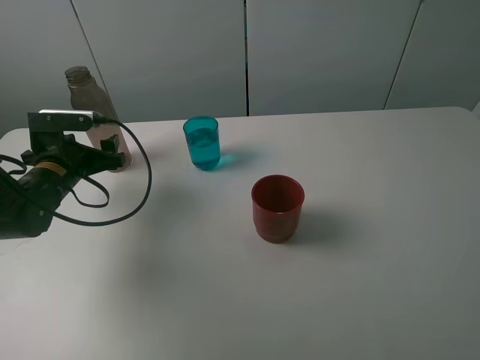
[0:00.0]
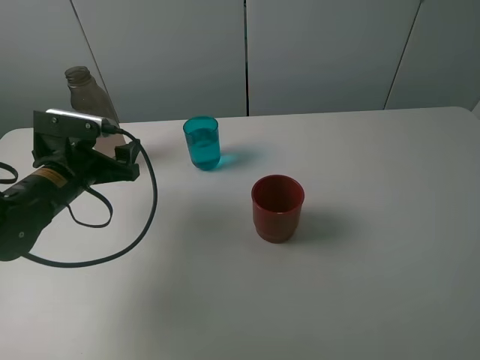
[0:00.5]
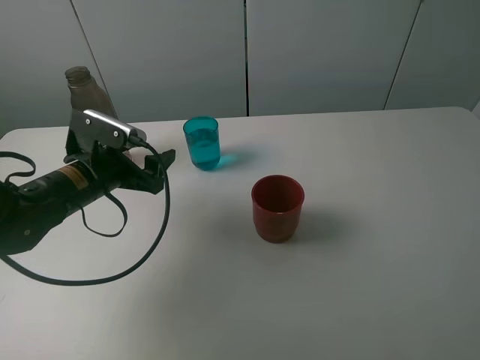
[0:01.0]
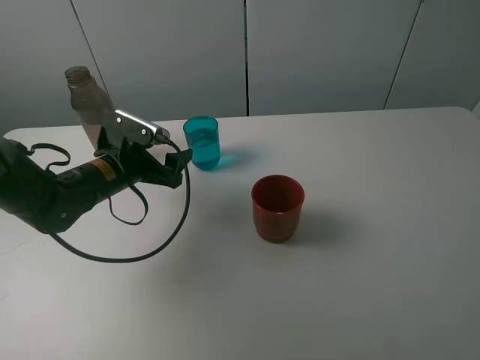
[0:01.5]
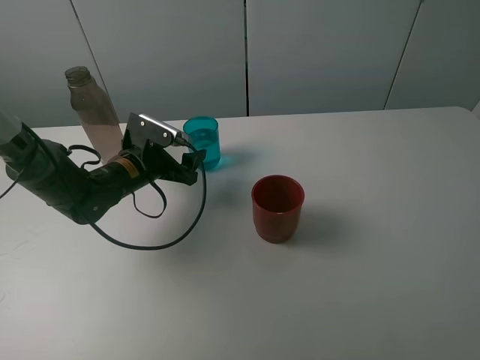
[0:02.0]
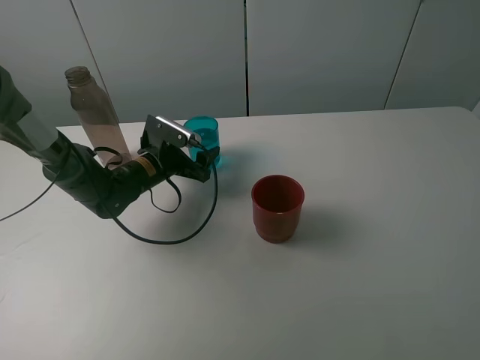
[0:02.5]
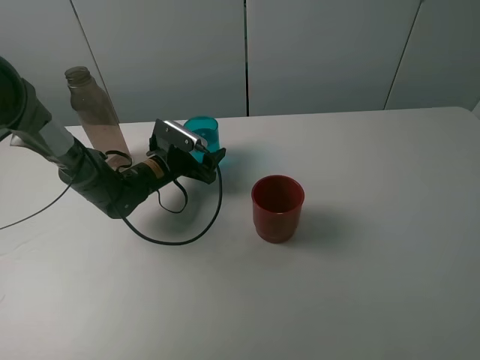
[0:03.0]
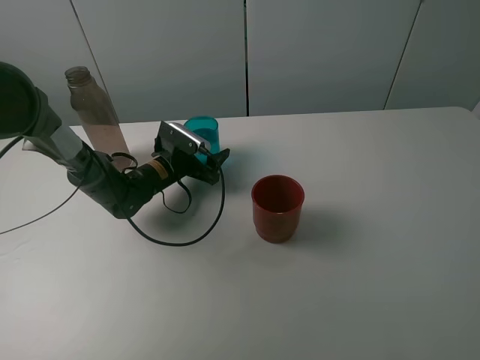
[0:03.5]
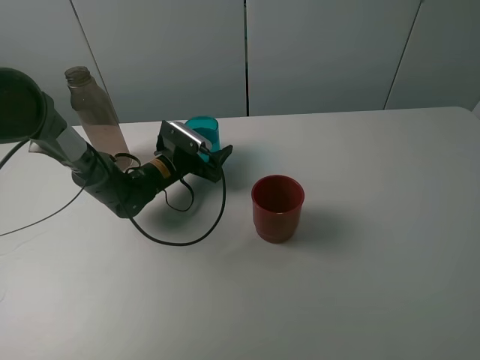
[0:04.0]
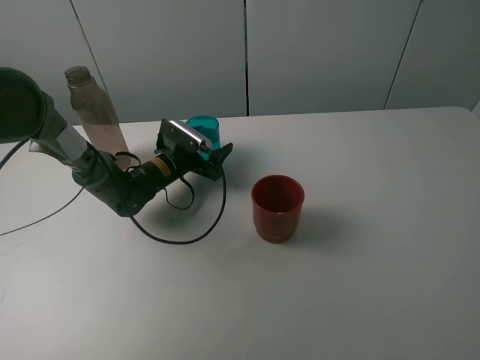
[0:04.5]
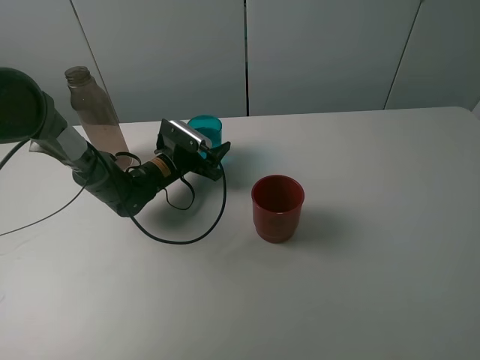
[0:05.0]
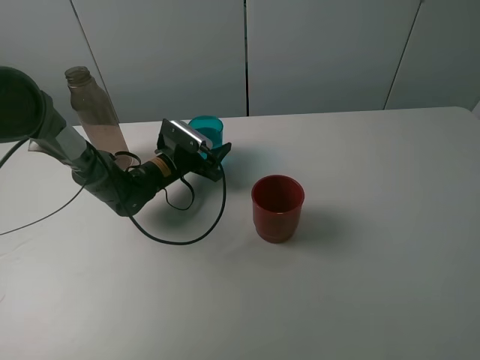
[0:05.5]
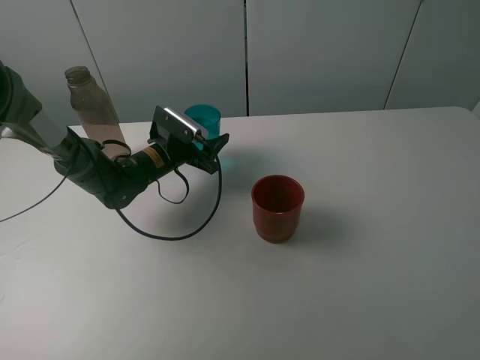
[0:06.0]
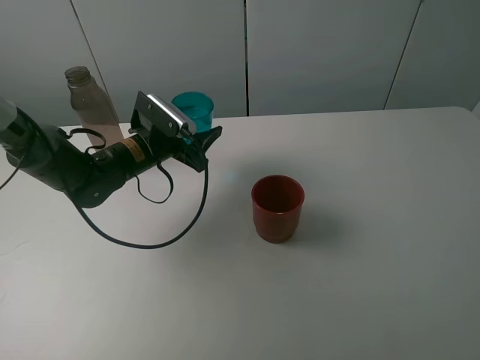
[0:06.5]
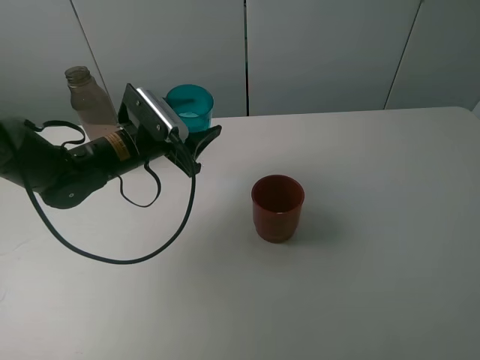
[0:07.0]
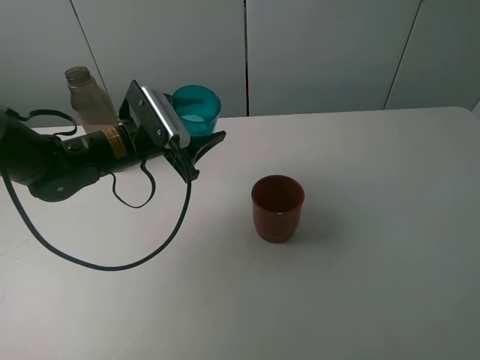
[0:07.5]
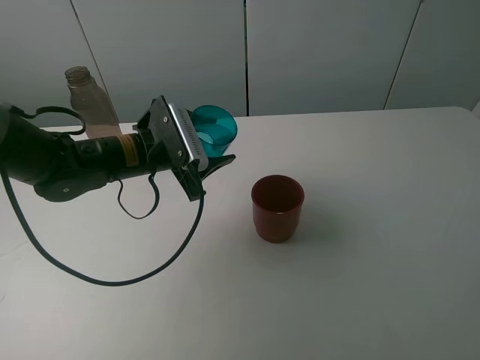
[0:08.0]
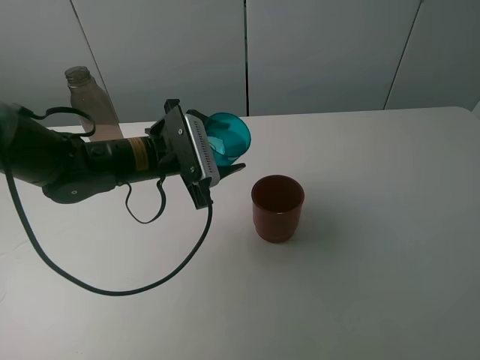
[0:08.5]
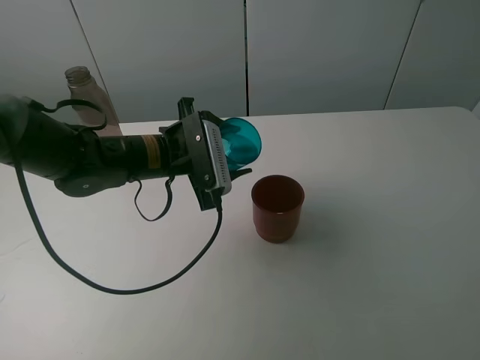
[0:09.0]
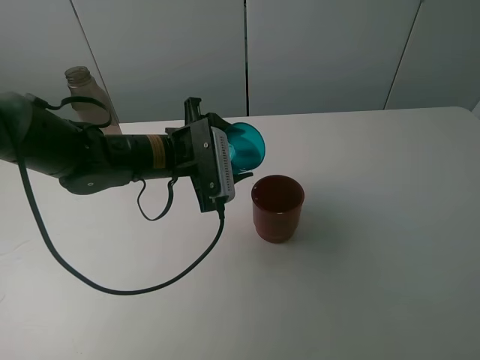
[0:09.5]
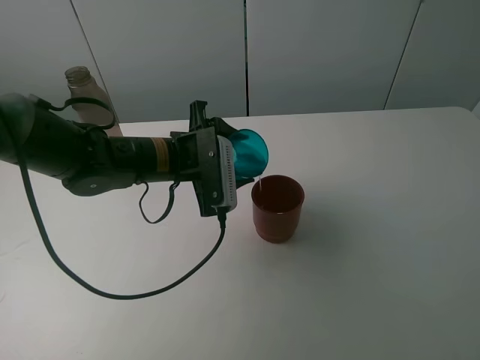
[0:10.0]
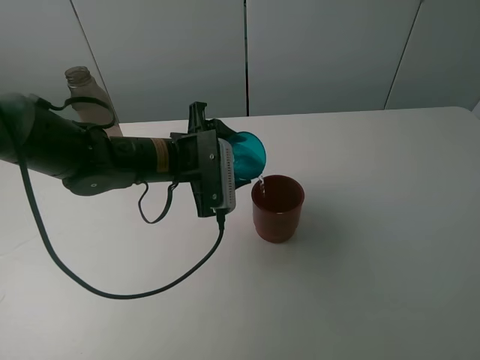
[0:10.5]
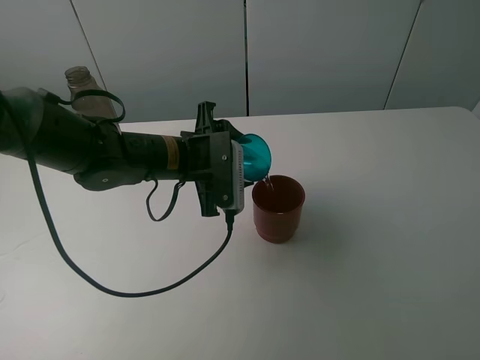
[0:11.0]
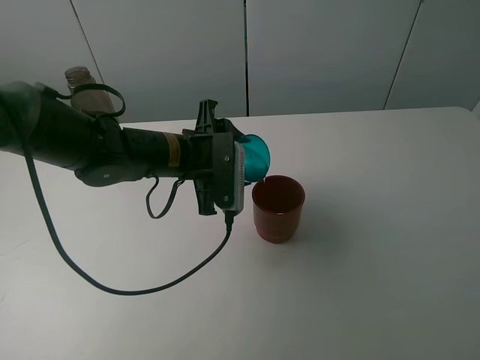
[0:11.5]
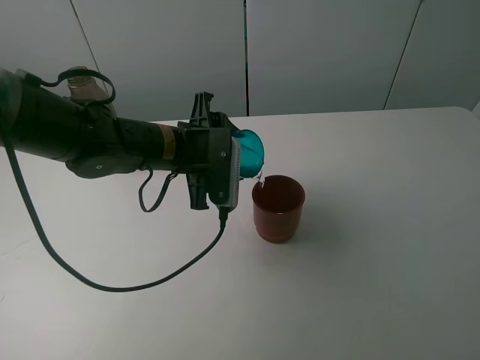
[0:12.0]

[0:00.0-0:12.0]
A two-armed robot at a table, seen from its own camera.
Task of the whole recording: pick up the bottle and pour water into the cup, then pick up the cup containing water and pour it into another cup.
Step, 0:00.0 to 0:05.0: Grasp the blue cup with the left gripper.
0:00.0 to 0:02.0: The left gripper goes roughly 10 cm to the right.
0:02.0 to 0:04.0: The left gripper heads forward, covering approximately 5 cm.
0:04.0 to 0:06.0: The left gripper closes its fingers.
0:06.0 to 0:08.0: The left gripper heads backward and upward, covering approximately 10 cm.
0:10.0 to 0:12.0: The grippers stay close to where they were, moving slightly.

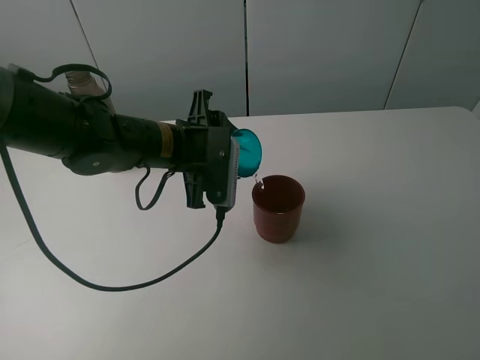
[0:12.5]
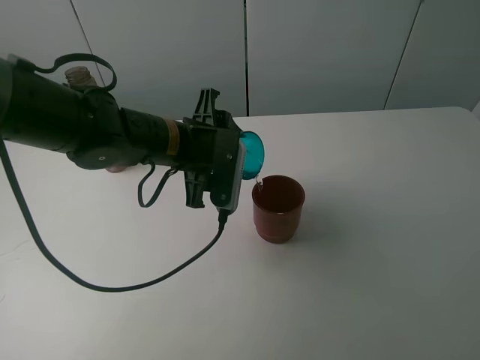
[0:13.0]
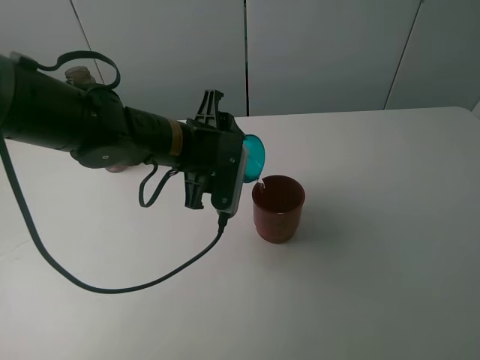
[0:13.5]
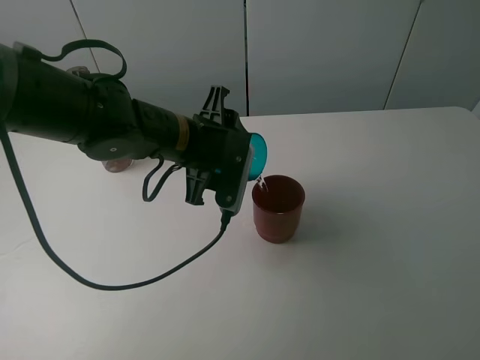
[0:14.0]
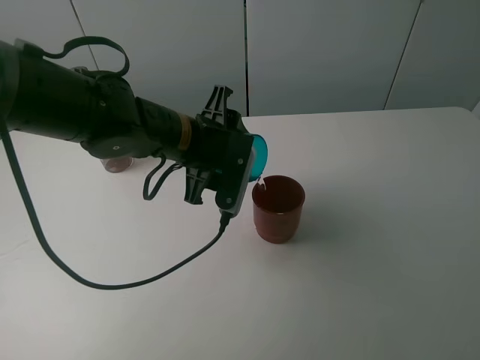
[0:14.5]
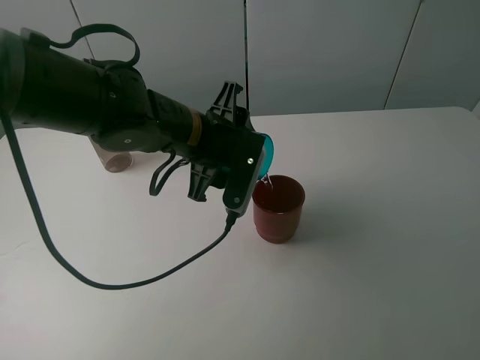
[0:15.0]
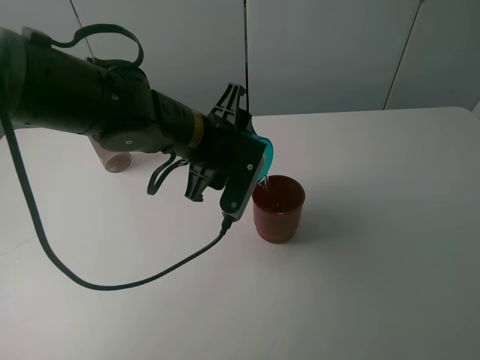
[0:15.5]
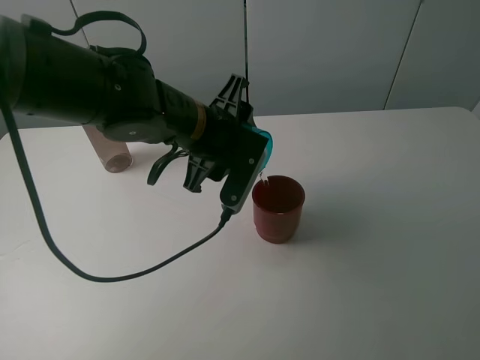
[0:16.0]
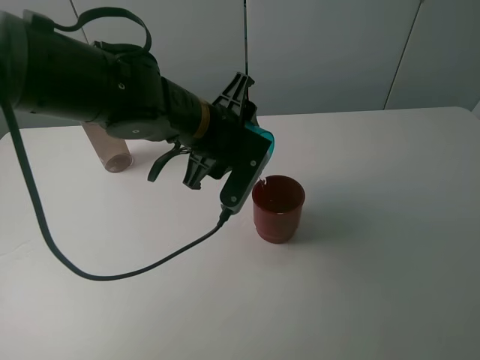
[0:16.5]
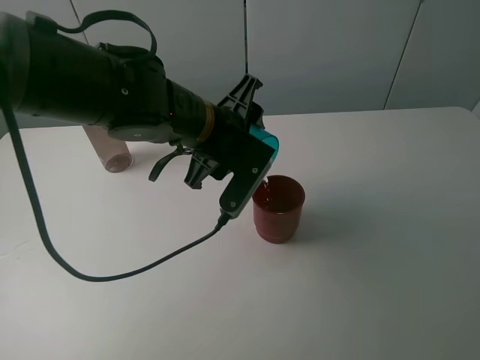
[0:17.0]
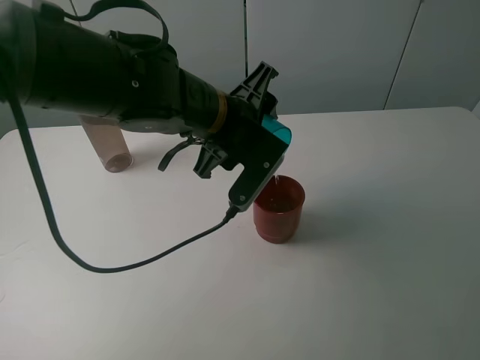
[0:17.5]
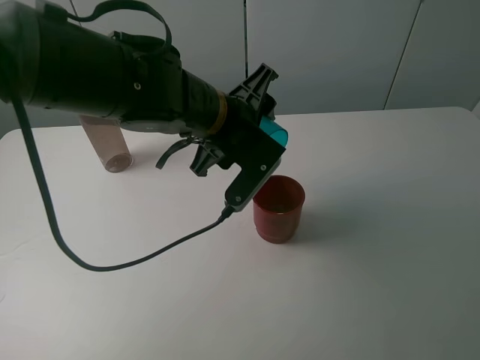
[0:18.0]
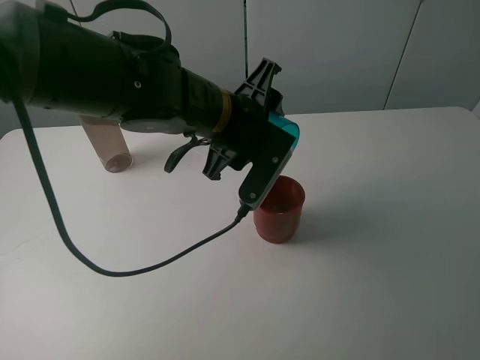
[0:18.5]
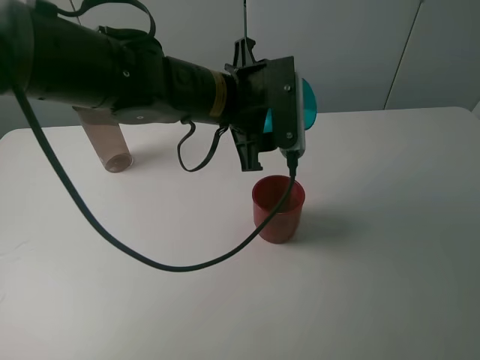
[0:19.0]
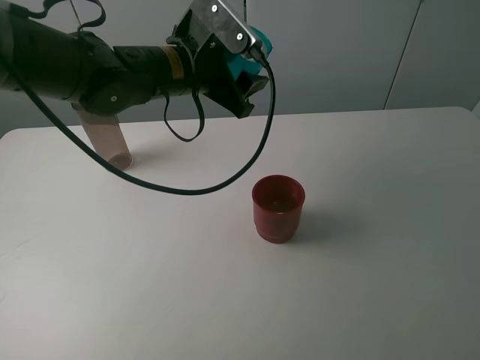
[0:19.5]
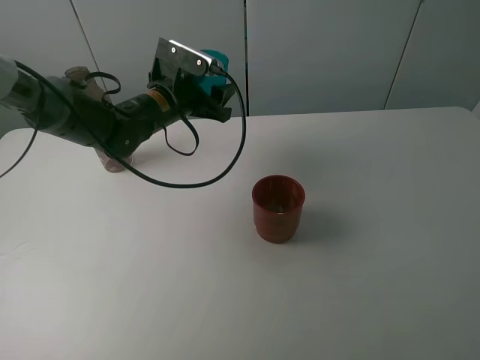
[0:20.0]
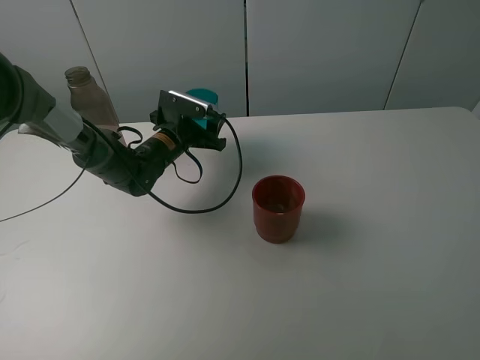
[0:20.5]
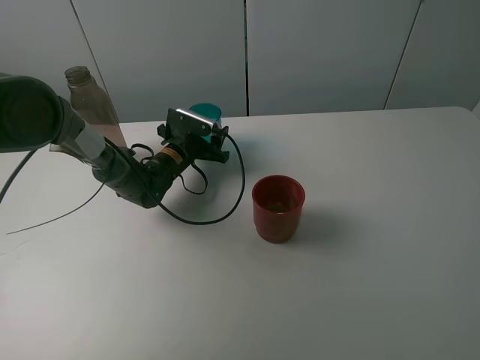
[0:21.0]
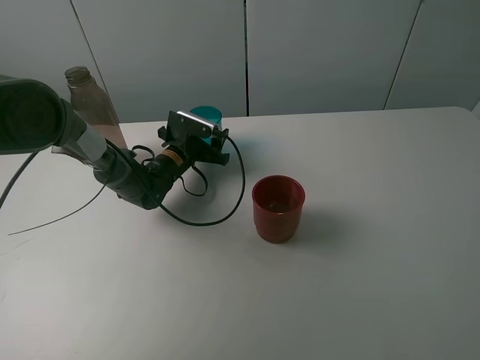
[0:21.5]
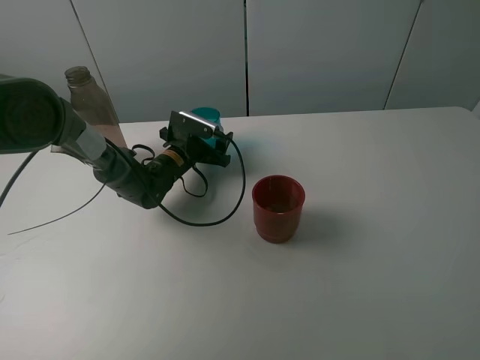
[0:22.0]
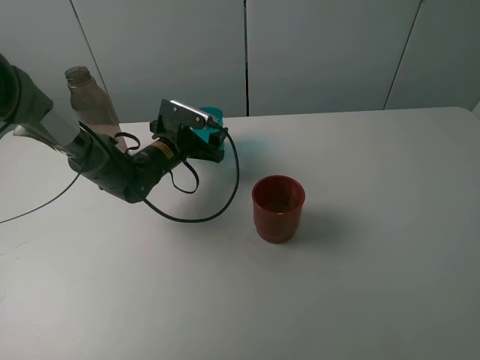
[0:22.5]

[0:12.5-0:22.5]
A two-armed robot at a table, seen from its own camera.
Task of the whole recording: pick up the bottle and pour water into the cup, then pick up the cup containing water and pour it into another cup.
Step, 0:12.5 to 0:18.5: Pour water from blue cup to red cup with the left gripper.
Step, 0:19.0 to 0:22.0: Place the blue cup with the left gripper.
0:12.5 to 0:14.5: The grippers stay close to where they were, moving slightly.
0:14.5 to 0:16.5: The grippers stay close to where they were, moving slightly.
0:16.5 to 0:18.5: The grippers stay close to where they were, moving slightly.
0:18.5 to 0:20.5: The left gripper goes approximately 25 cm downward, forward and to the left.
0:20.5 to 0:22.5: The left gripper opens up.

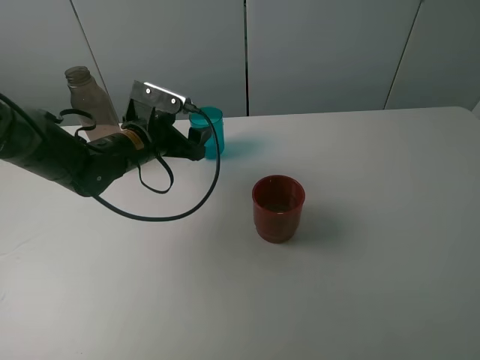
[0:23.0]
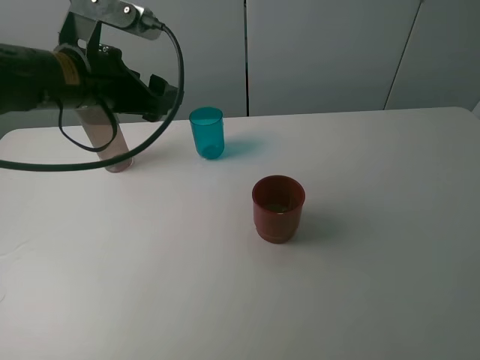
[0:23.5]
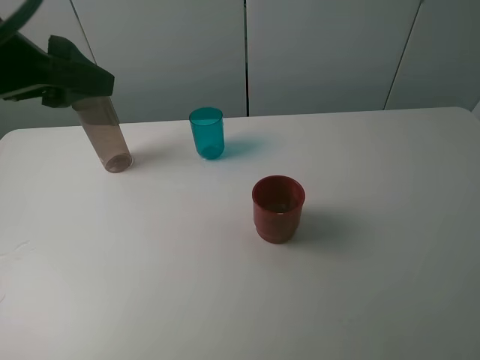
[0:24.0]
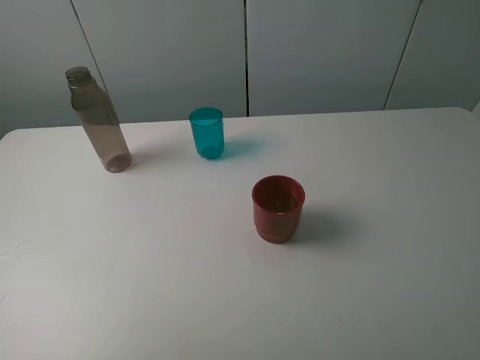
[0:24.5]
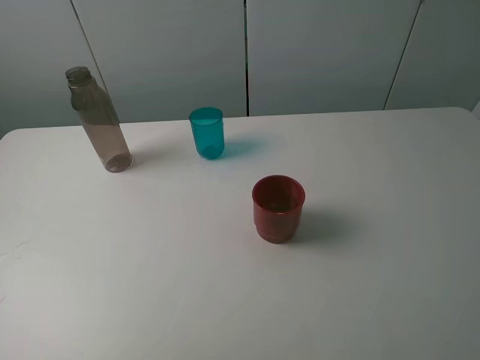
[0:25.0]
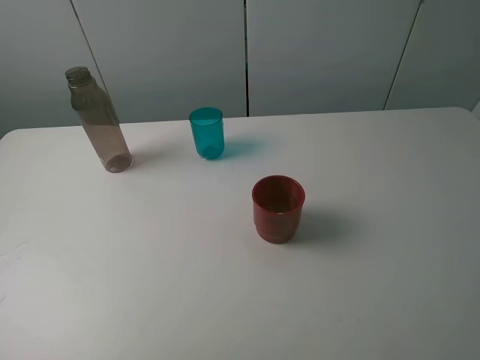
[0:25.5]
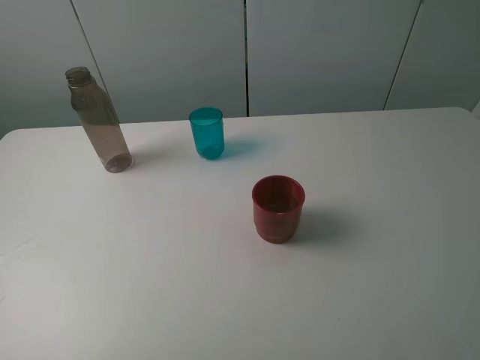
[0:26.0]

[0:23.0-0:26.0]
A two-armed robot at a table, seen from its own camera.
Task of the whole recording: pick up the bottle and pour water into the cup, then pick up the cup containing water and pour it into another cup.
0:23.0 to 0:24.5: The left gripper goes approximately 40 cm backward, upward and to the left.
